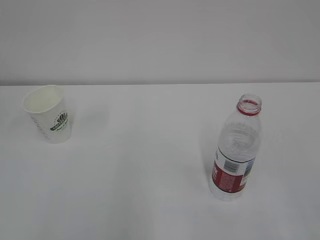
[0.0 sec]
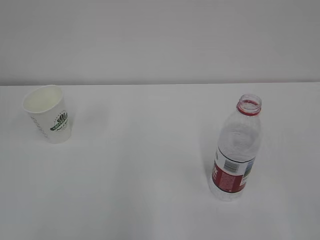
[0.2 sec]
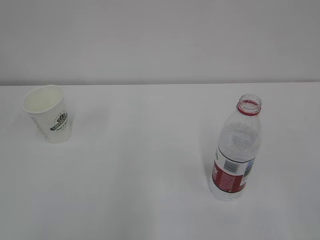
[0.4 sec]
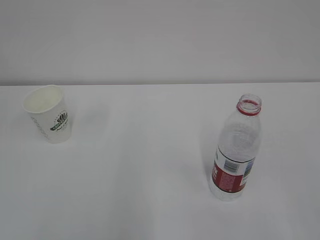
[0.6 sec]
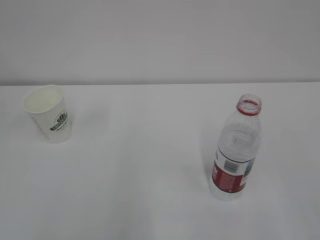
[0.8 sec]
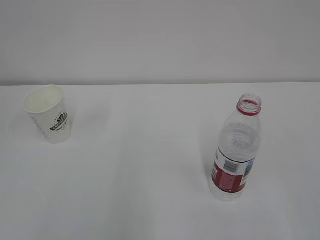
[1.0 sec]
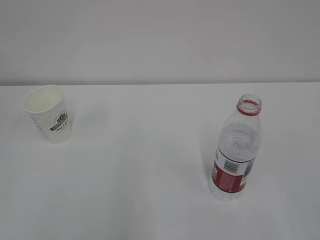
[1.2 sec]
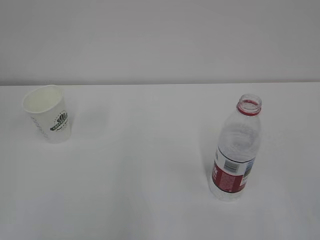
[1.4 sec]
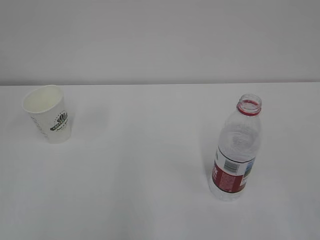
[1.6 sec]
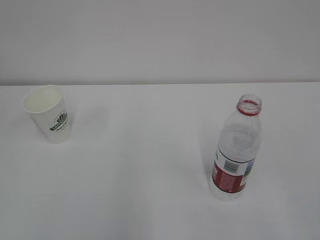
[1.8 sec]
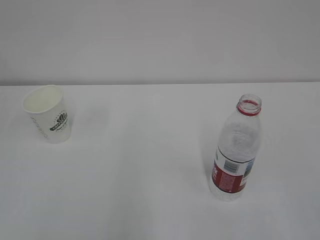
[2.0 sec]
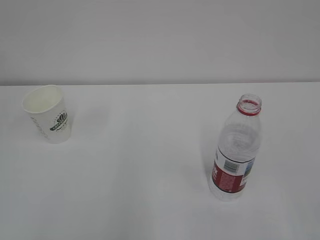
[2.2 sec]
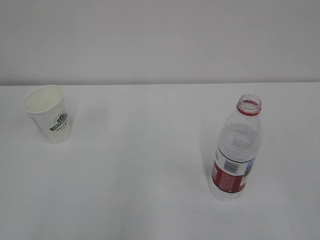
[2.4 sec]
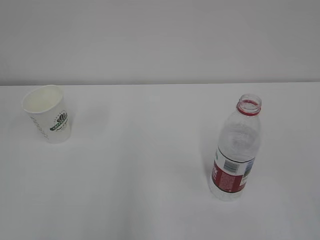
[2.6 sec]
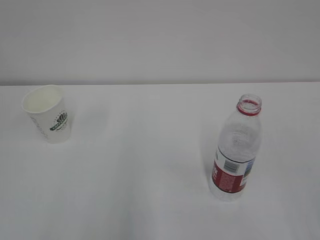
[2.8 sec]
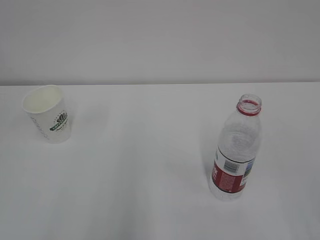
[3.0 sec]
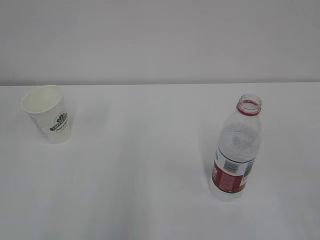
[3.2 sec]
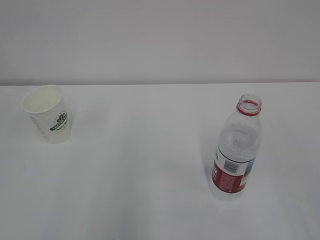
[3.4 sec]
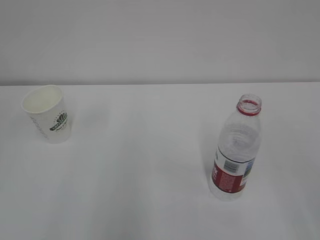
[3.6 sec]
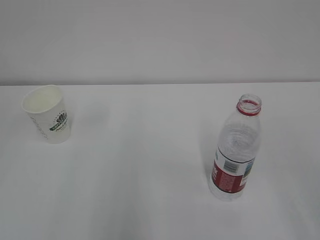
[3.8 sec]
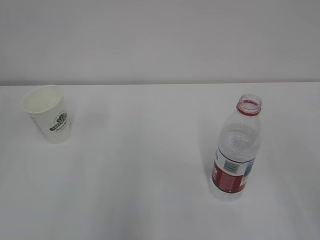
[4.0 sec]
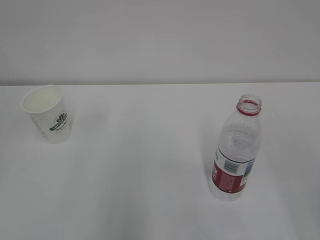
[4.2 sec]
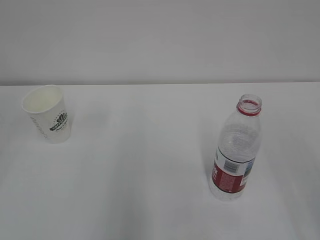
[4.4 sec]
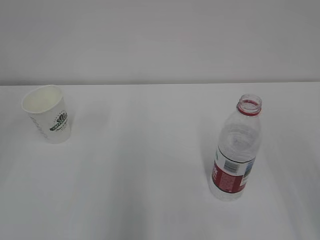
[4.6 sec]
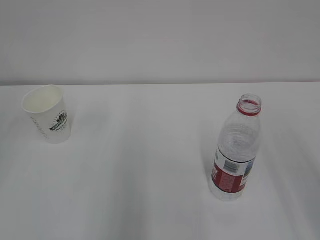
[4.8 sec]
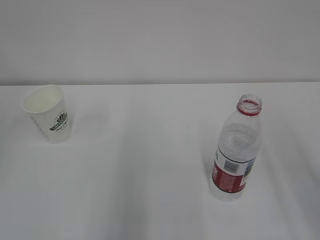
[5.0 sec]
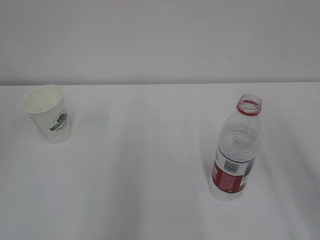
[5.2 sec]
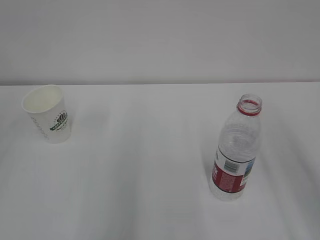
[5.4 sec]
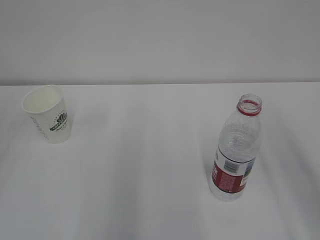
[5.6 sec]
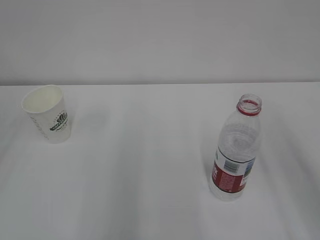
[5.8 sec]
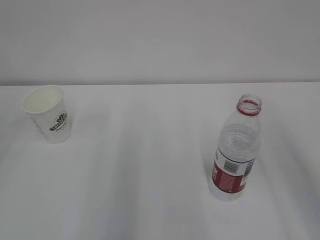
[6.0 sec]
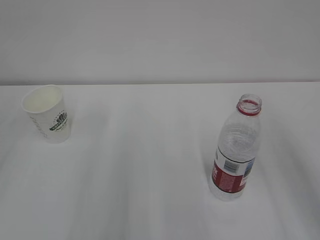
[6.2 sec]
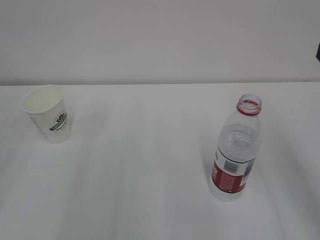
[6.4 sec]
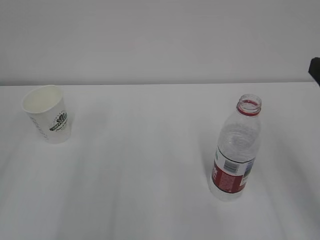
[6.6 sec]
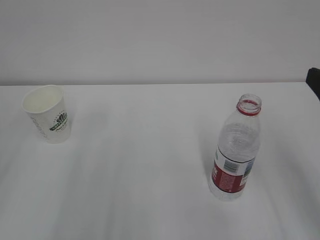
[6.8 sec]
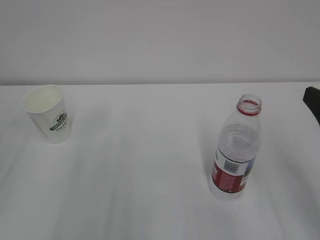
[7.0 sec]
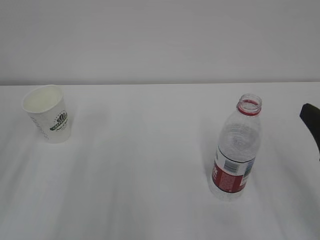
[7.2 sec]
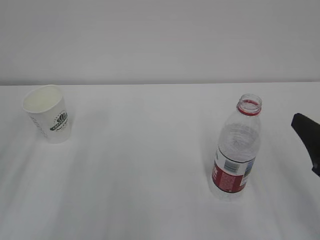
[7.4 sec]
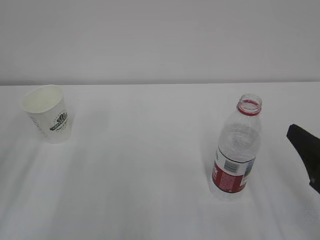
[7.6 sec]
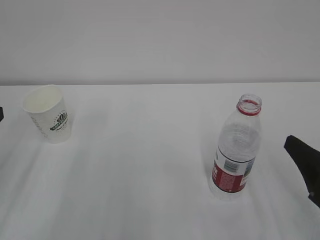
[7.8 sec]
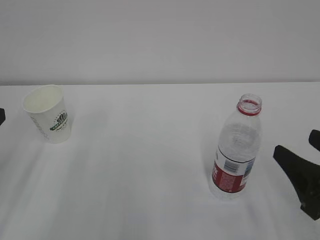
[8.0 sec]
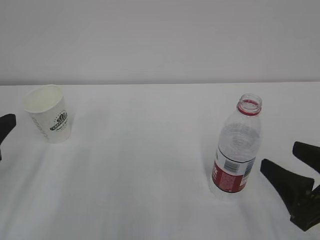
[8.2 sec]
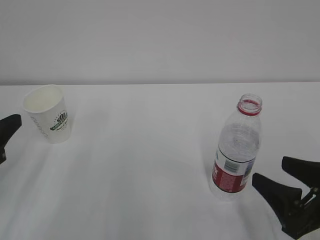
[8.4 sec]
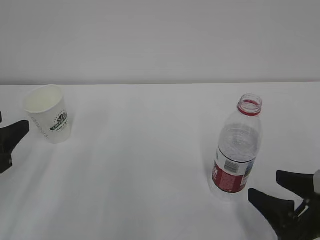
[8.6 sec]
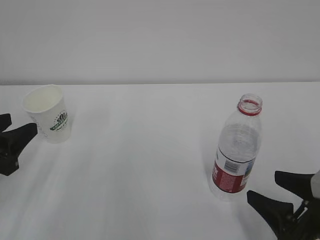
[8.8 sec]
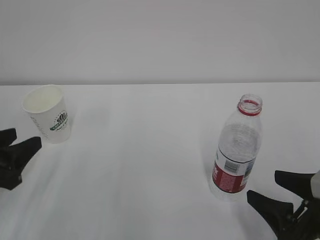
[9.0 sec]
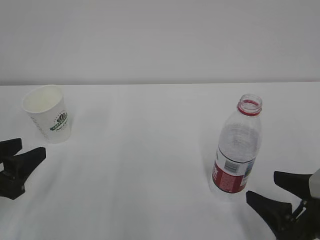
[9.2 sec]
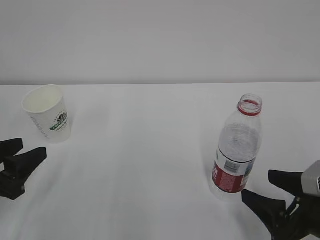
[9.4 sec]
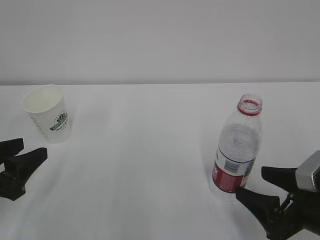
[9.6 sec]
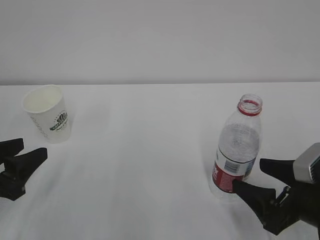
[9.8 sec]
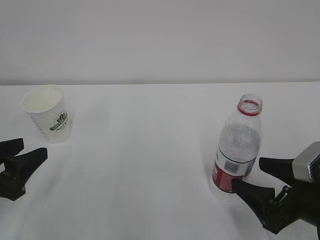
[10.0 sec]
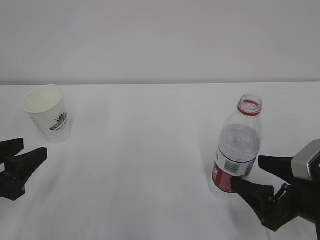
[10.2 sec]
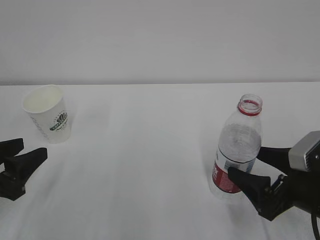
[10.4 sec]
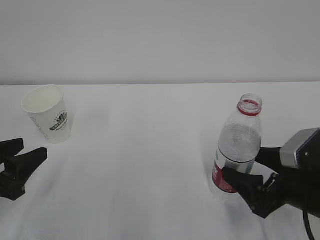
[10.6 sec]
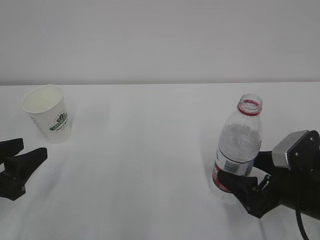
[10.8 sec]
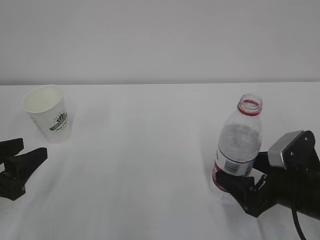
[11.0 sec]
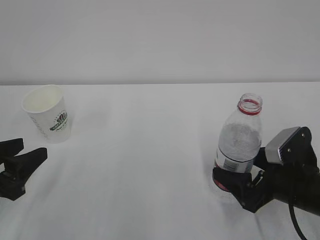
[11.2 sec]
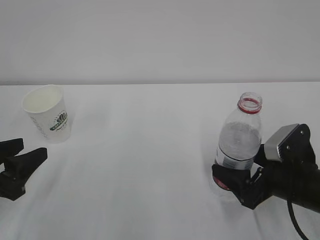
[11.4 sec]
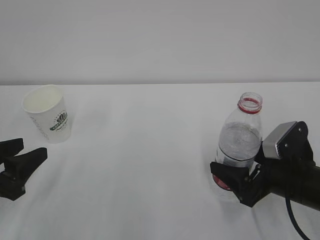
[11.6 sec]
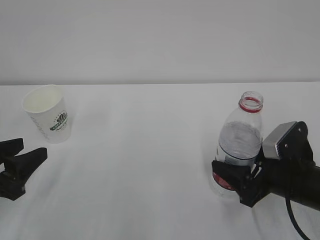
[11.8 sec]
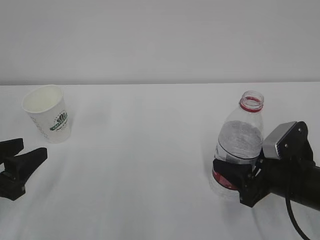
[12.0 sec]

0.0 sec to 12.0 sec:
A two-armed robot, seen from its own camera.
6.0 sec to 7.6 sec: The right gripper shifts some 15 cm downward.
7.6 sec to 9.0 sec: Both grippers travel together downward, approximately 5 cm.
9.0 sec to 10.4 sec: The grippers stay close to where they were, moving slightly.
10.4 sec to 12.0 sec: The right gripper closes its fingers.

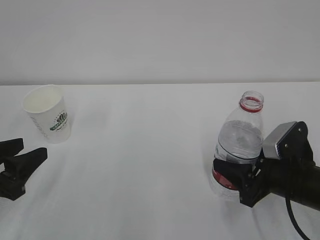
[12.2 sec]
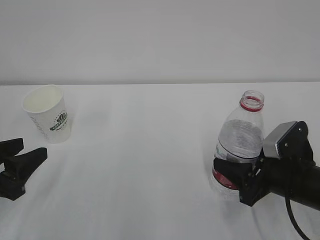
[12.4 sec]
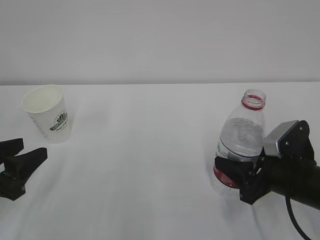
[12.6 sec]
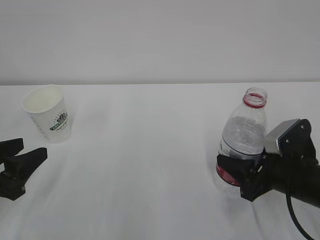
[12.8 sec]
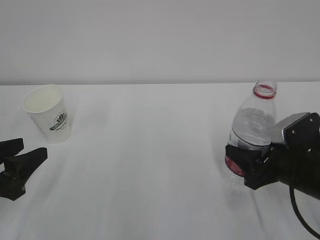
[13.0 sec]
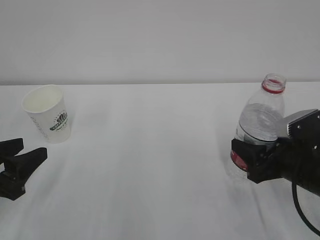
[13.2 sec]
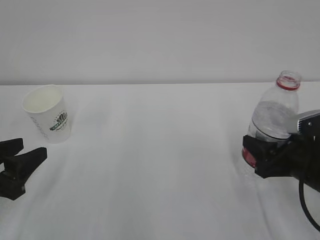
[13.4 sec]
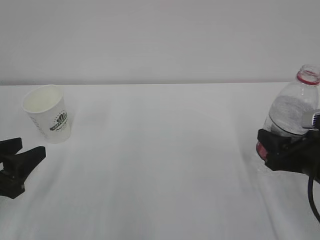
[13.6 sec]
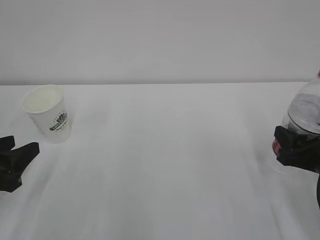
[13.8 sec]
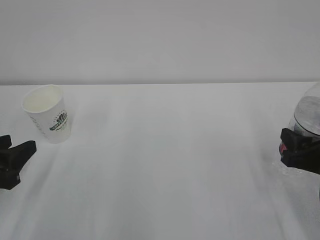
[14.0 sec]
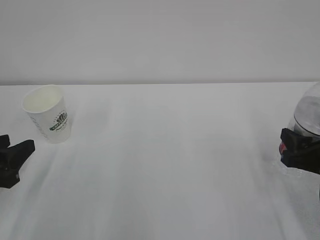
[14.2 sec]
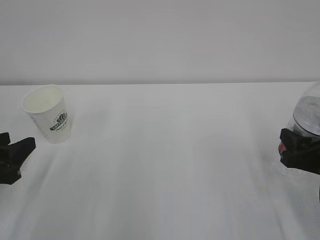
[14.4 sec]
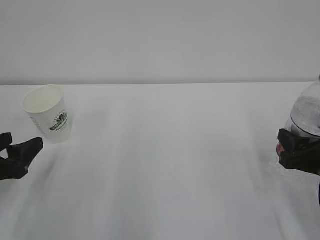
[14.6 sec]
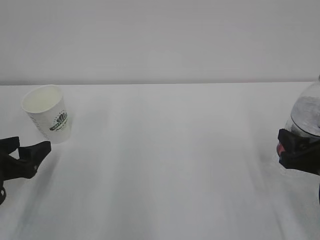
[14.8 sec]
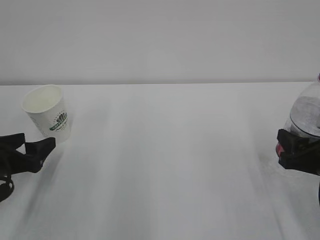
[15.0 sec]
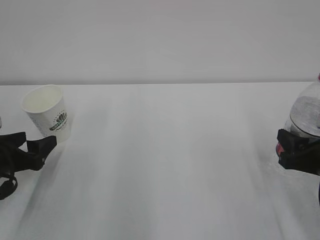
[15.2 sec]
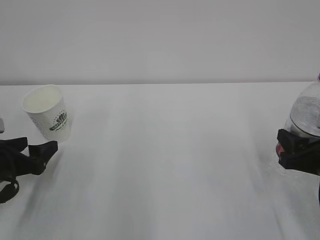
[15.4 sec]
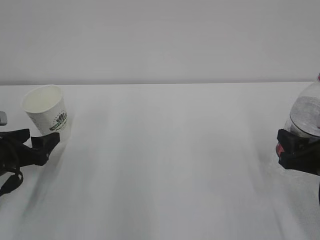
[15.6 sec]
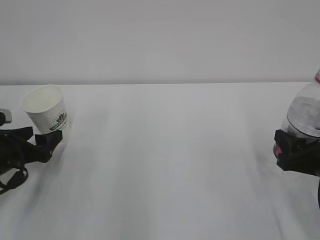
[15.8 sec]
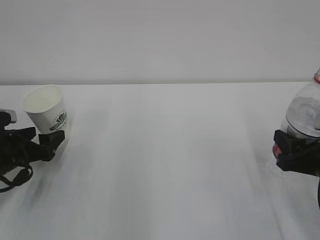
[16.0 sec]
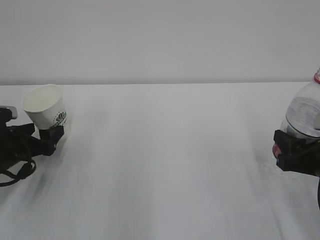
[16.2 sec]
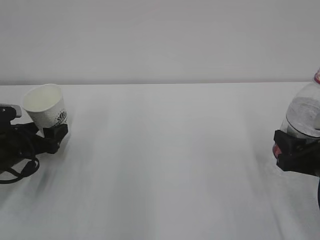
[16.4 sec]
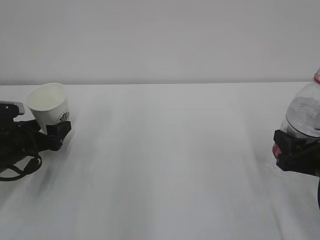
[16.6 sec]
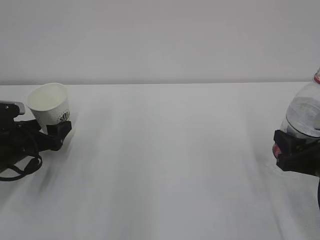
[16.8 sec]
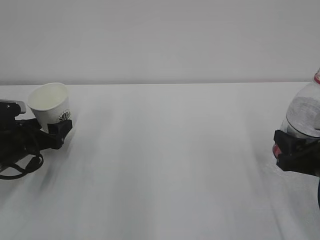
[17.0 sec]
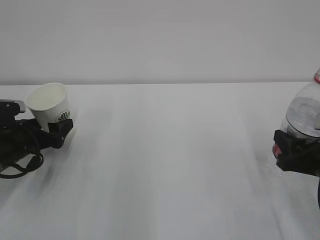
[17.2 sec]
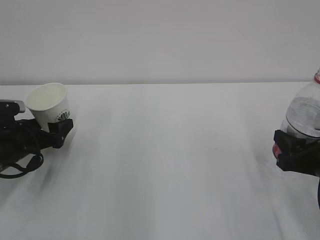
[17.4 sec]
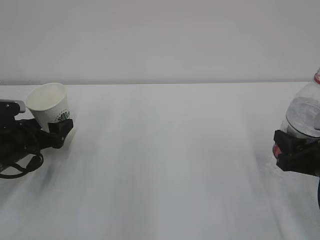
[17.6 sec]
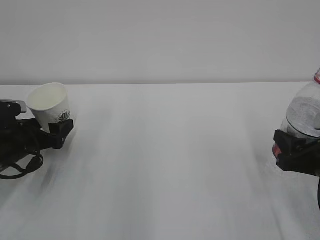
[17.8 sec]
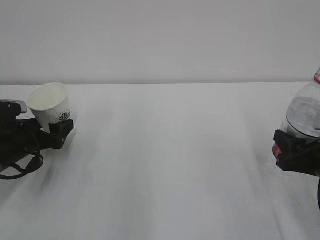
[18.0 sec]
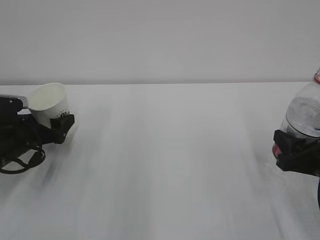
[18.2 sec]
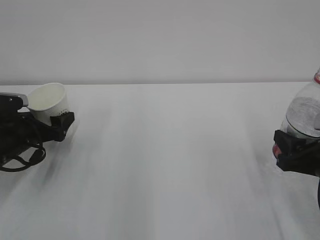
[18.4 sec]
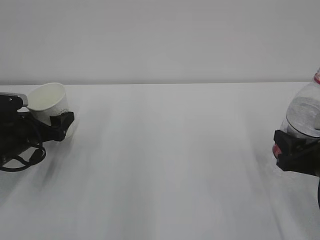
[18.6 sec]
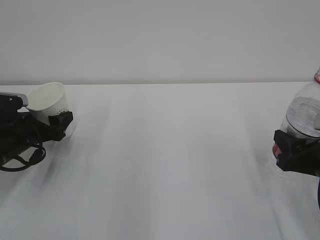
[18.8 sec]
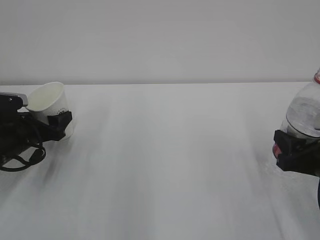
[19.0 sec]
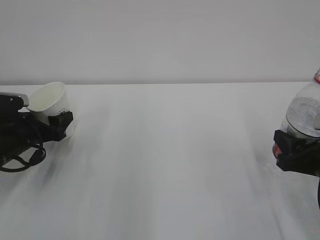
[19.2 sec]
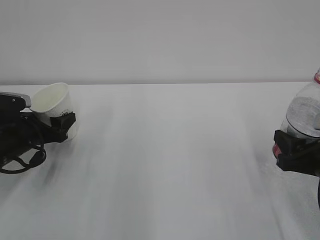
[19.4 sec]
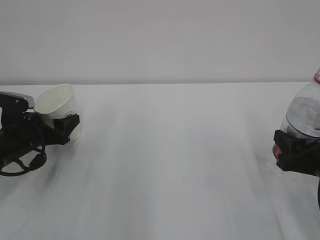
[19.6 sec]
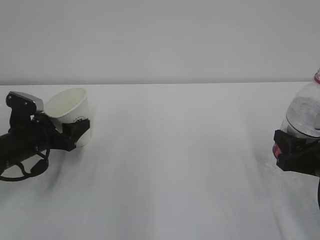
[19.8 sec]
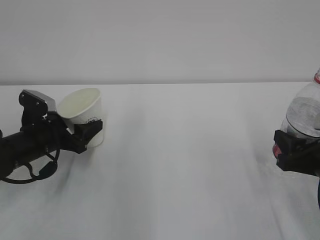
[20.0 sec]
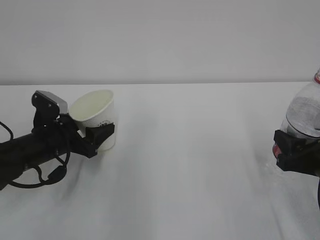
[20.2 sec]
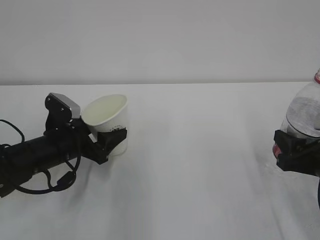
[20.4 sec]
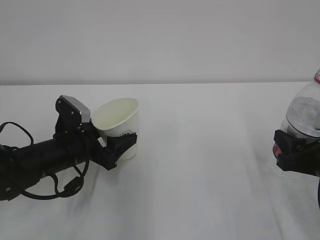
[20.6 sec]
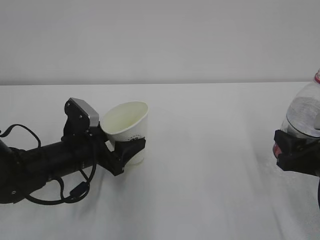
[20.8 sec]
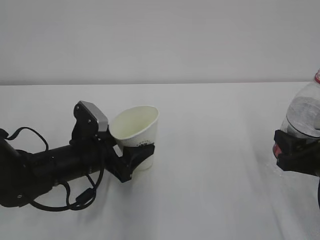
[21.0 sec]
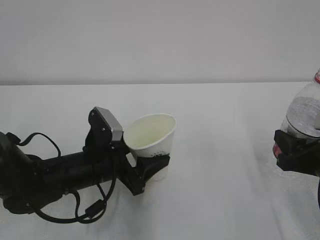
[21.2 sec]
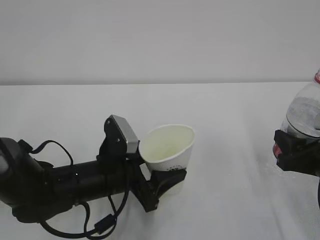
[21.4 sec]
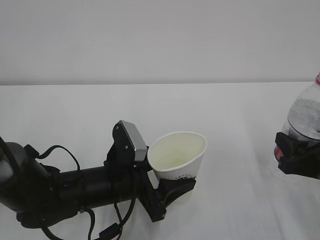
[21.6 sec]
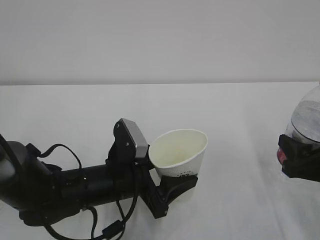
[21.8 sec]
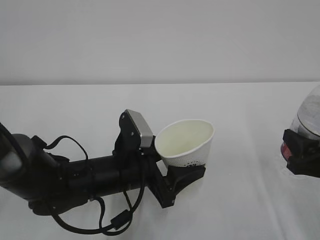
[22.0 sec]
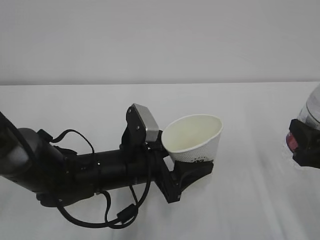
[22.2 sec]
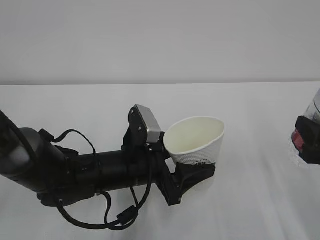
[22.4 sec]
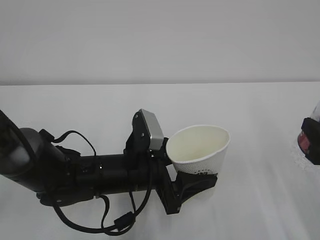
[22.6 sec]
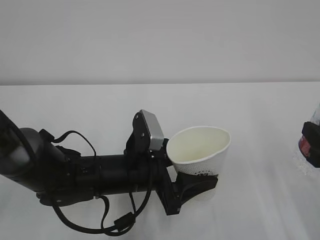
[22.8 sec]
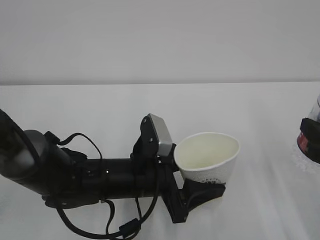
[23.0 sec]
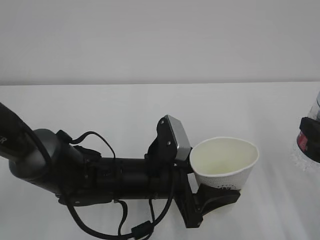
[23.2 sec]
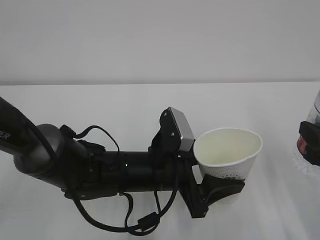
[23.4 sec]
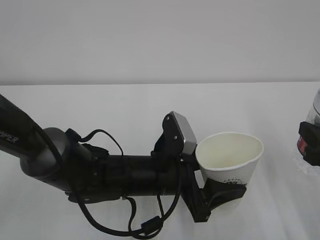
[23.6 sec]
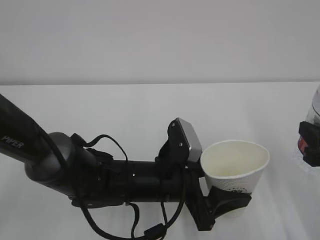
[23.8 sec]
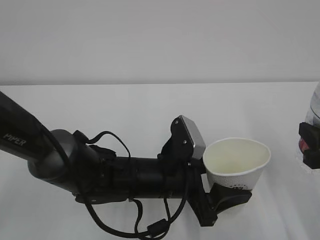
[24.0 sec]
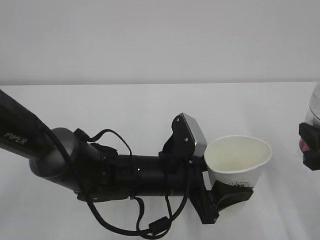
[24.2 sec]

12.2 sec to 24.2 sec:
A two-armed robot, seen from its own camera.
12.2 sec to 13.8 sec: The right gripper moves to the right, roughly 5 cm.
13.8 sec to 15.2 sec: The left gripper goes approximately 5 cm forward, and opens its fingers.
15.2 sec to 16.6 sec: The left gripper shifts some 5 cm forward.
16.6 sec to 18.2 sec: The grippers stay close to where they were, moving slightly.
18.2 sec to 19.8 sec: The left gripper closes up.
19.8 sec to 21.2 sec: The left gripper shifts approximately 15 cm to the right and backward.
21.2 sec to 22.6 sec: The left gripper moves to the right, about 5 cm, while the right gripper shifts by roughly 5 cm.
22.6 sec to 24.2 sec: The left gripper heads to the right, covering roughly 5 cm.
